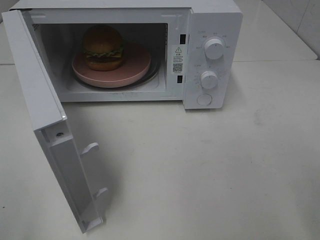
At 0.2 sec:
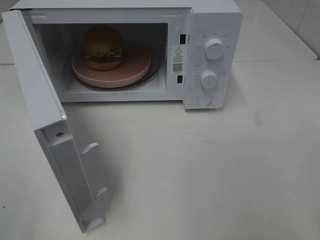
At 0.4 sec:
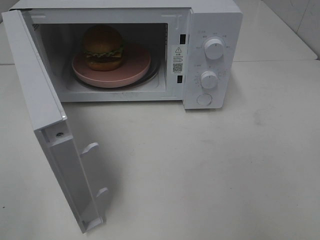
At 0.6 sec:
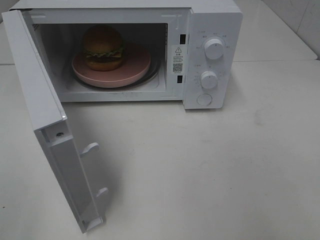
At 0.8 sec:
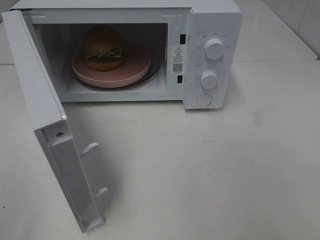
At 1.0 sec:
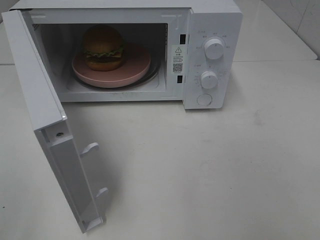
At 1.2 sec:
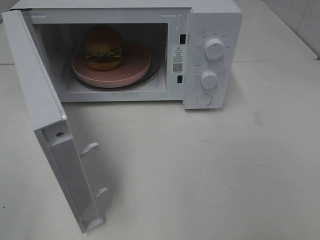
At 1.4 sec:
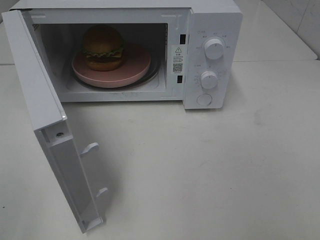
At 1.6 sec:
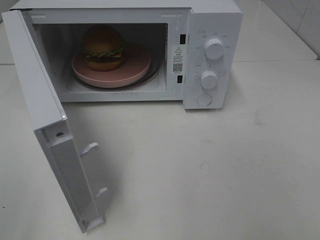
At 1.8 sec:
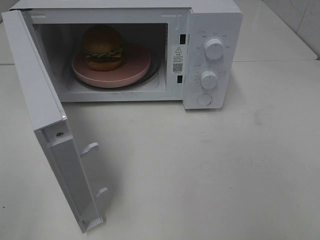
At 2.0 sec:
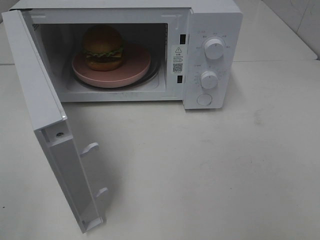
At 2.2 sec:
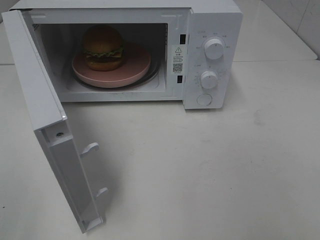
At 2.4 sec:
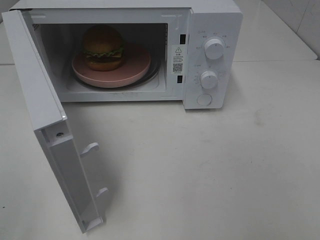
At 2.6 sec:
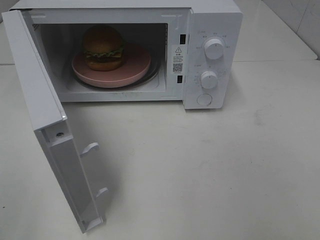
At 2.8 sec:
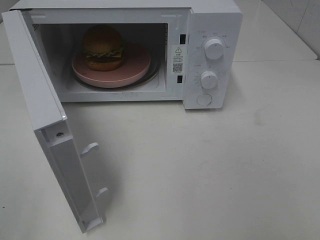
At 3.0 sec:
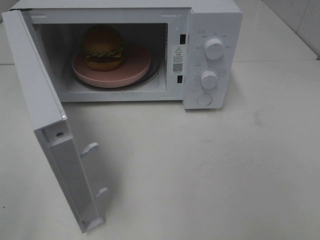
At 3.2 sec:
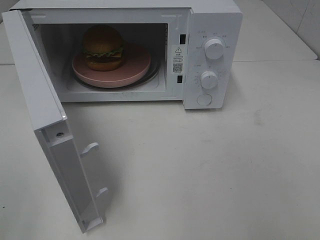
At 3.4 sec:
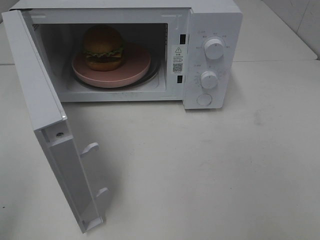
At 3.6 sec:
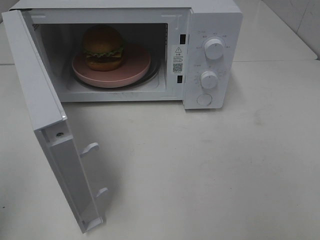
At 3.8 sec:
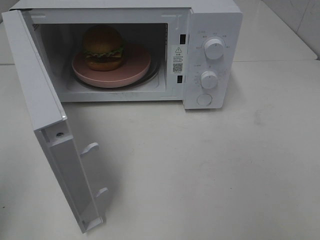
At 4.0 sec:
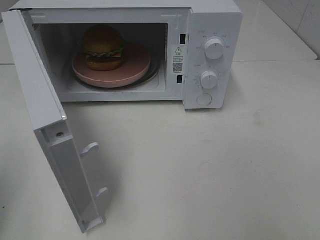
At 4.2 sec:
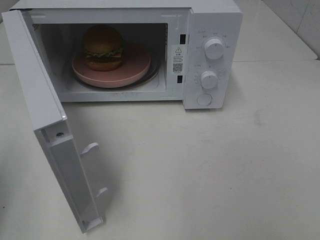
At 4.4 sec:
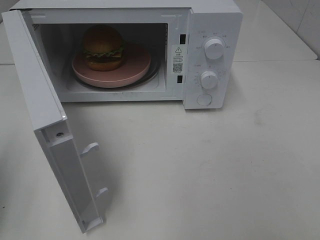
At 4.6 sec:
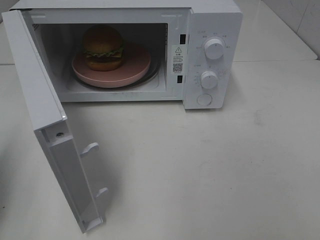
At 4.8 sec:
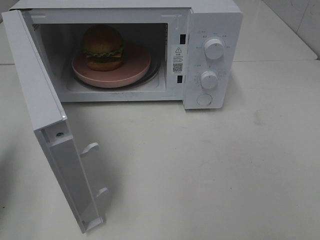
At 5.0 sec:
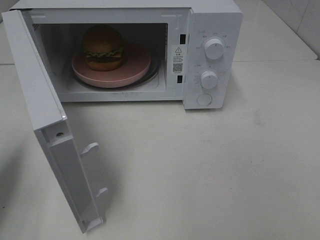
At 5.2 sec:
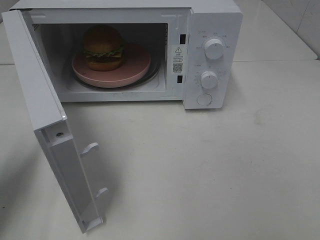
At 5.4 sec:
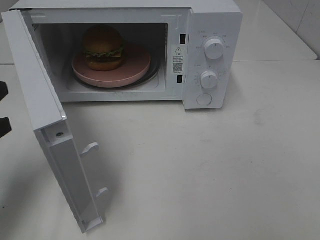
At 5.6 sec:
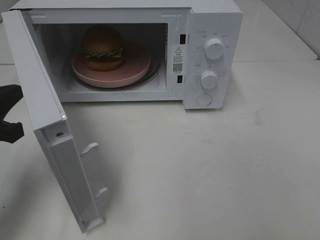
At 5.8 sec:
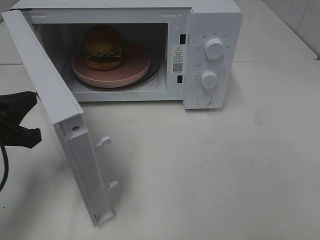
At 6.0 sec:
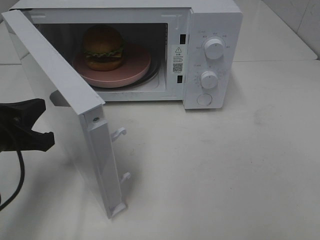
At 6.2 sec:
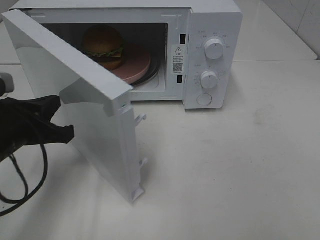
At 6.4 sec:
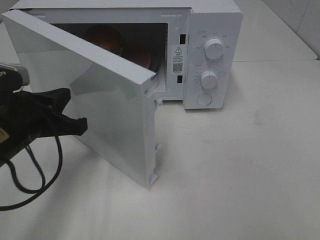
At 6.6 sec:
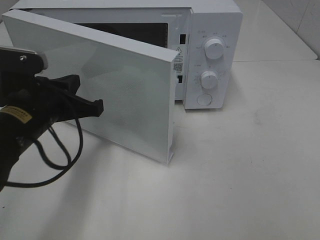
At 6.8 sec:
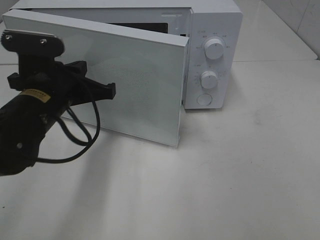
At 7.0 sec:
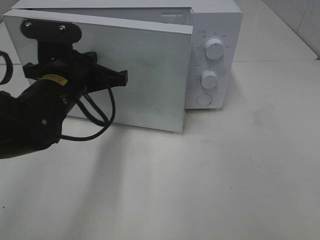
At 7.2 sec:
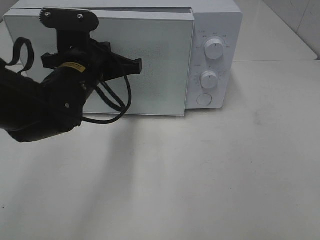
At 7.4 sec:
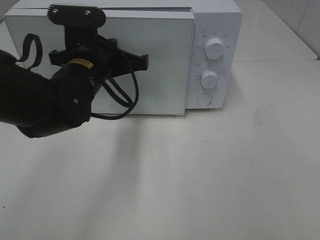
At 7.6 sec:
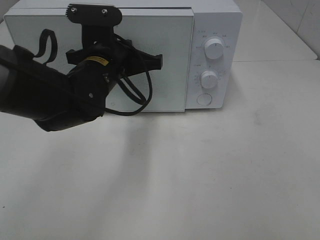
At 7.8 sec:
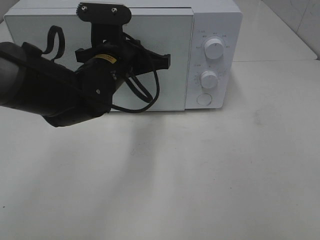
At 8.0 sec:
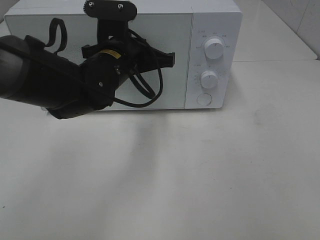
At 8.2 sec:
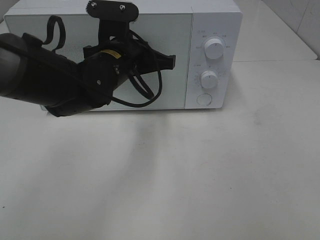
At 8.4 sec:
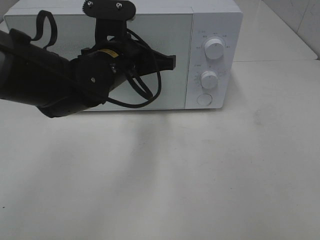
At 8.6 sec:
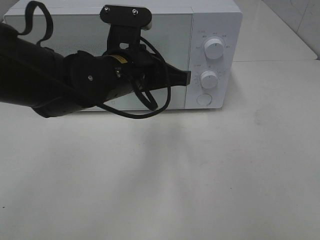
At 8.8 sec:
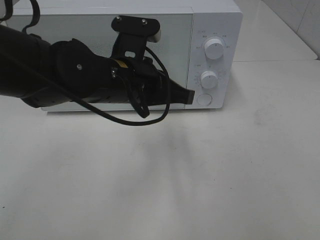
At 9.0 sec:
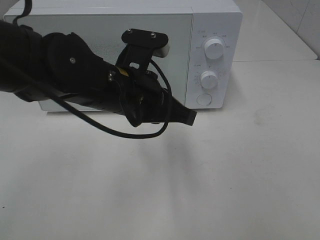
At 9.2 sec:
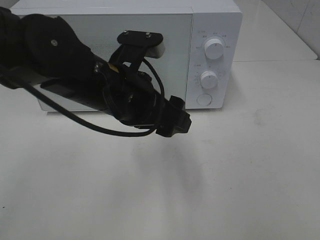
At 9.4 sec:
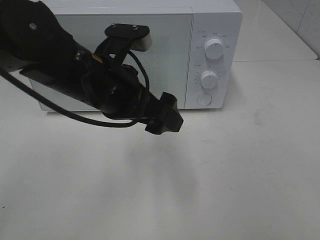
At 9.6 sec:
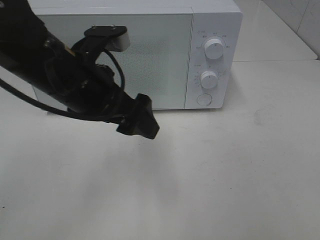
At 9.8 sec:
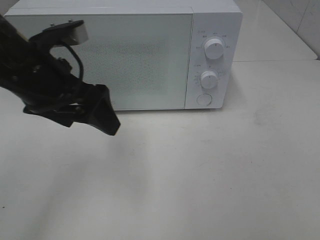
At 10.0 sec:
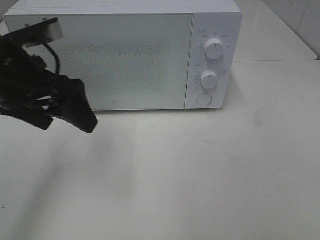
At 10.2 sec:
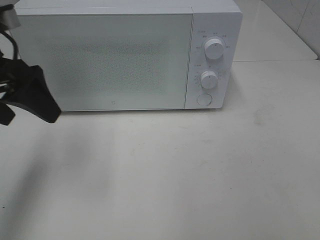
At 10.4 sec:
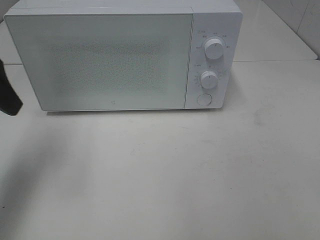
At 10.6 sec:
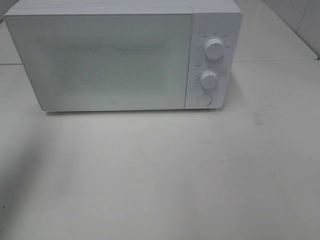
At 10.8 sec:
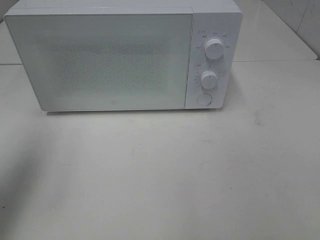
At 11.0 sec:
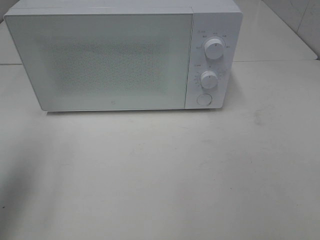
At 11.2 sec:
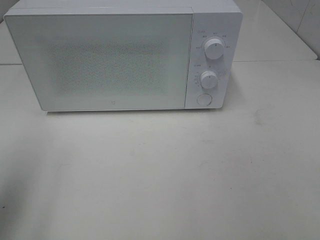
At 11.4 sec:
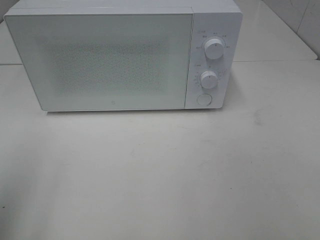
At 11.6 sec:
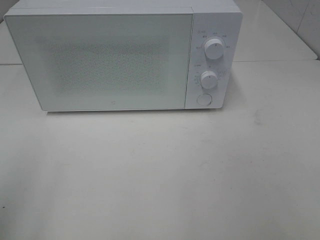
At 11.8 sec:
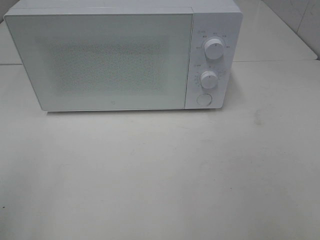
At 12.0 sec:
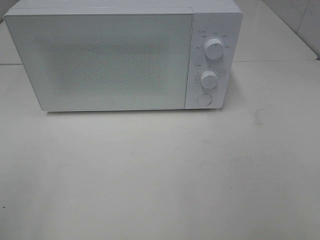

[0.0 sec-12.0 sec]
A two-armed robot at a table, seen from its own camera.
Task of the whole recording: Heat the burger.
Step, 0.0 sec to 9.0 sec: Left hand: close the microwave door.
1.6 sec to 3.0 sec: Both grippers stay put.
4.4 sec to 6.0 sec: The left gripper shifts approximately 15 cm to the right, downward and forward.
6.0 sec to 7.6 sec: The left gripper heads to the right and forward, covering approximately 20 cm.
7.6 sec to 9.0 sec: The left gripper shifts roughly 5 cm backward.
9.0 sec to 10.4 sec: The left gripper is displaced to the left by approximately 25 cm, and opens.
10.4 sec to 12.0 sec: The left gripper heads backward, covering some 20 cm.

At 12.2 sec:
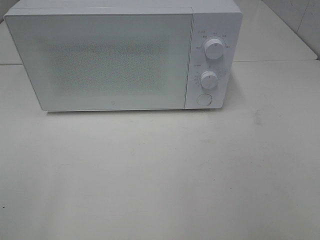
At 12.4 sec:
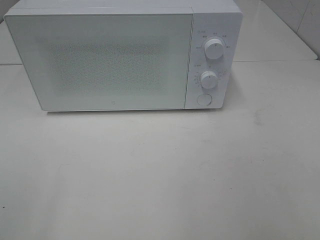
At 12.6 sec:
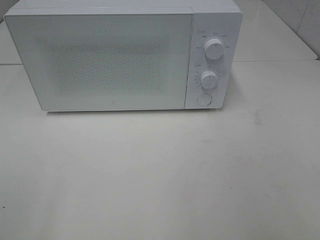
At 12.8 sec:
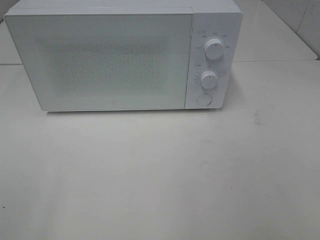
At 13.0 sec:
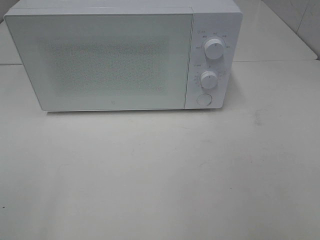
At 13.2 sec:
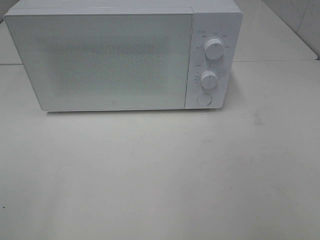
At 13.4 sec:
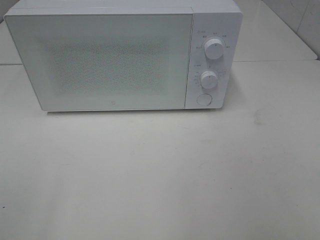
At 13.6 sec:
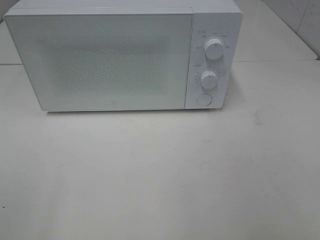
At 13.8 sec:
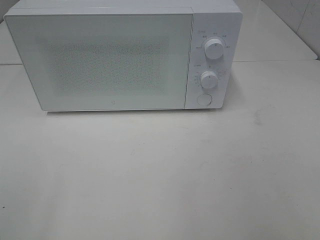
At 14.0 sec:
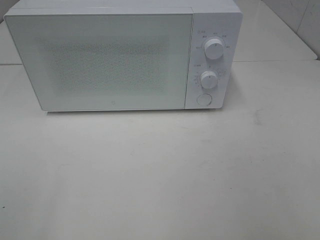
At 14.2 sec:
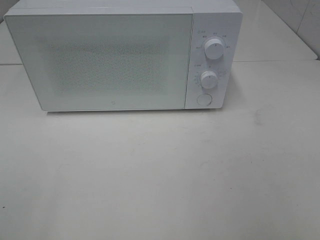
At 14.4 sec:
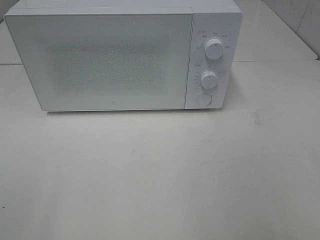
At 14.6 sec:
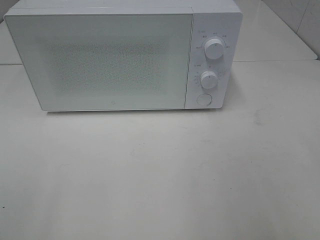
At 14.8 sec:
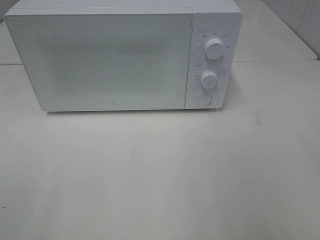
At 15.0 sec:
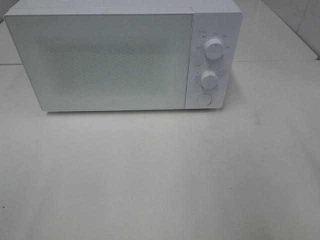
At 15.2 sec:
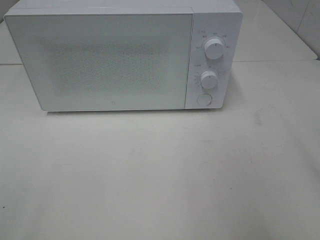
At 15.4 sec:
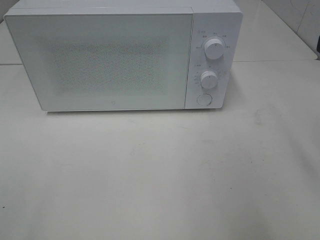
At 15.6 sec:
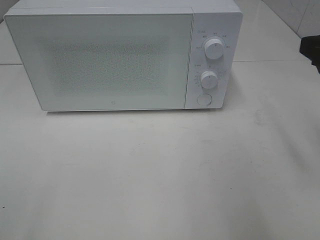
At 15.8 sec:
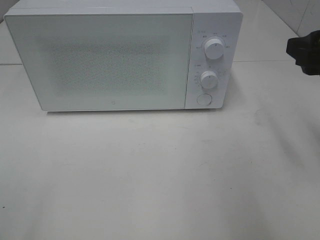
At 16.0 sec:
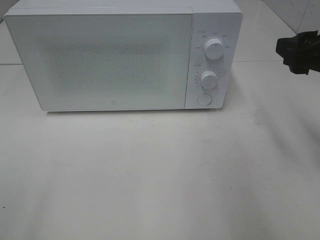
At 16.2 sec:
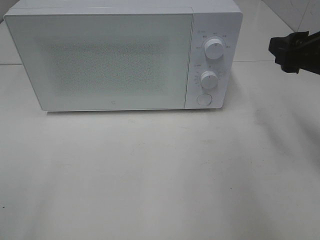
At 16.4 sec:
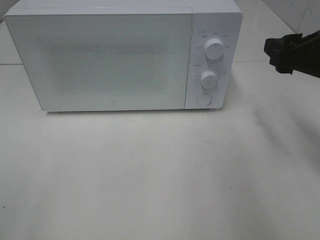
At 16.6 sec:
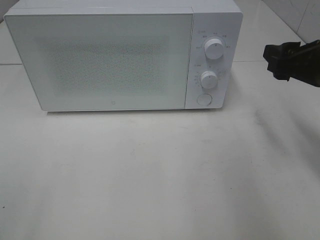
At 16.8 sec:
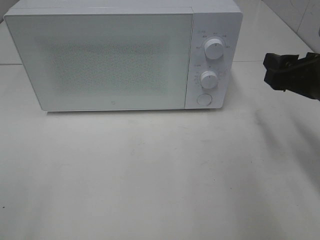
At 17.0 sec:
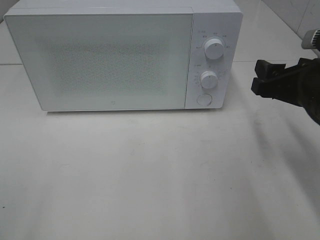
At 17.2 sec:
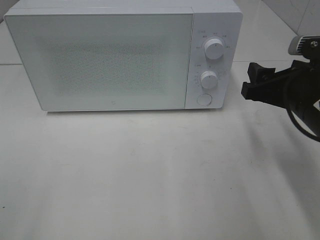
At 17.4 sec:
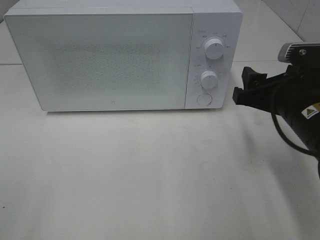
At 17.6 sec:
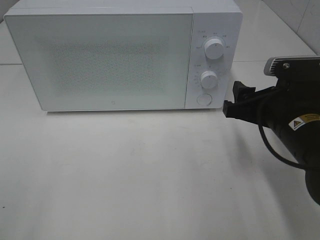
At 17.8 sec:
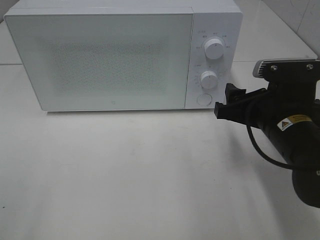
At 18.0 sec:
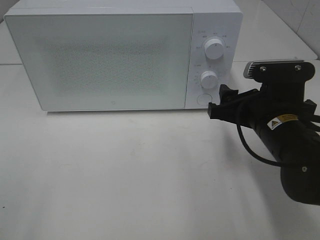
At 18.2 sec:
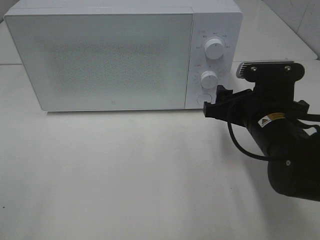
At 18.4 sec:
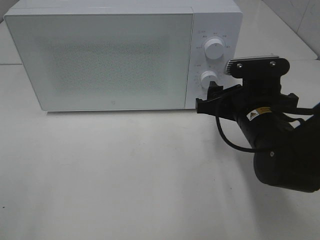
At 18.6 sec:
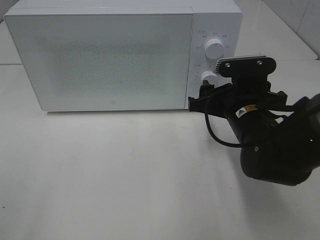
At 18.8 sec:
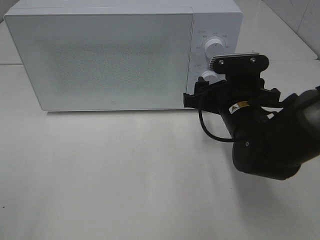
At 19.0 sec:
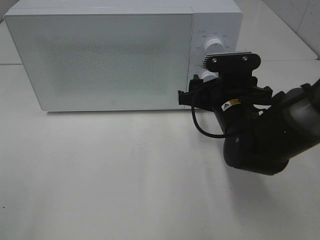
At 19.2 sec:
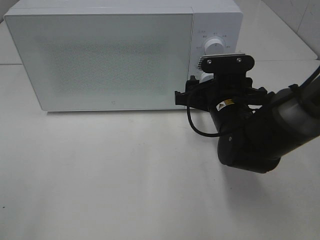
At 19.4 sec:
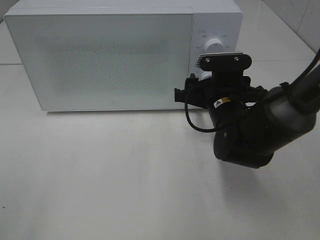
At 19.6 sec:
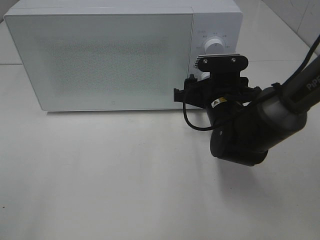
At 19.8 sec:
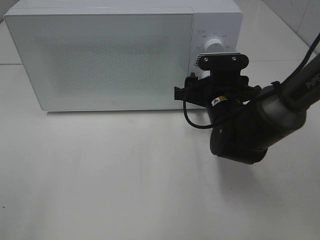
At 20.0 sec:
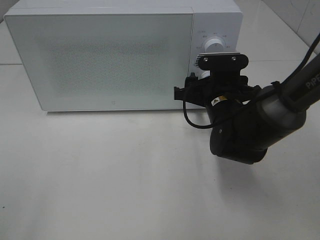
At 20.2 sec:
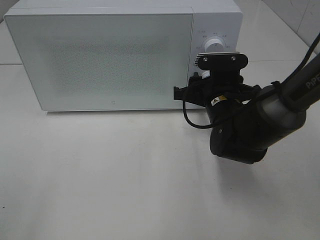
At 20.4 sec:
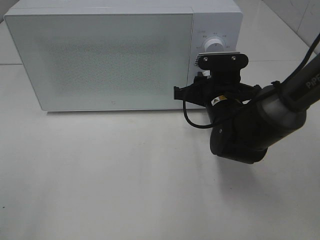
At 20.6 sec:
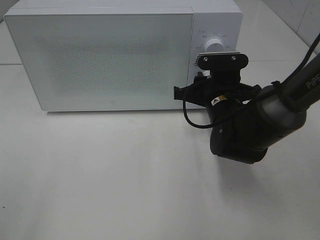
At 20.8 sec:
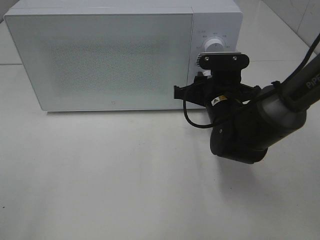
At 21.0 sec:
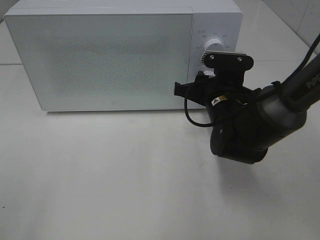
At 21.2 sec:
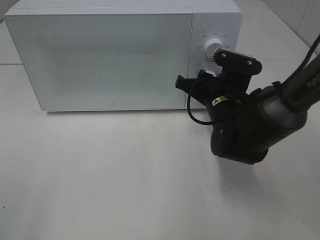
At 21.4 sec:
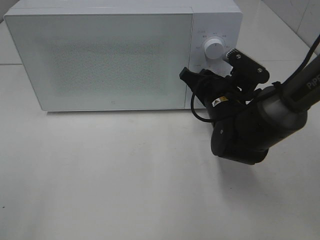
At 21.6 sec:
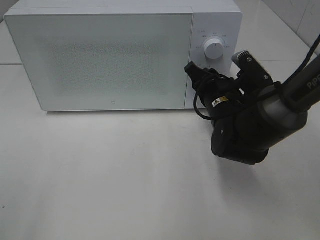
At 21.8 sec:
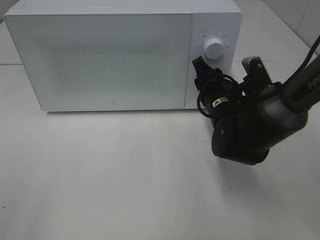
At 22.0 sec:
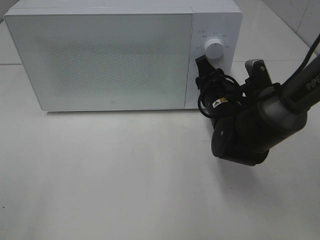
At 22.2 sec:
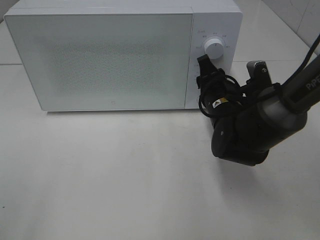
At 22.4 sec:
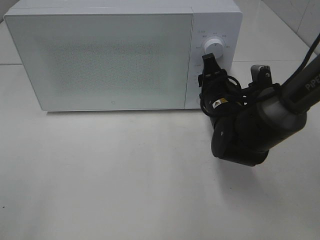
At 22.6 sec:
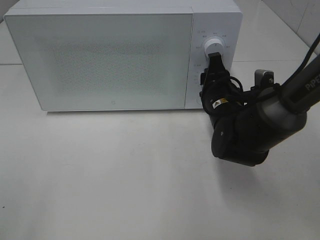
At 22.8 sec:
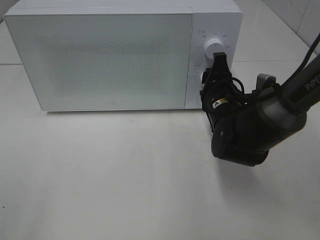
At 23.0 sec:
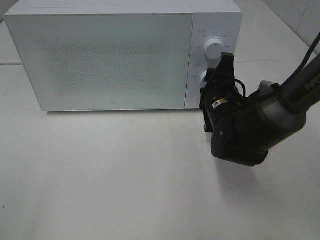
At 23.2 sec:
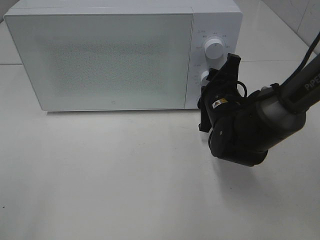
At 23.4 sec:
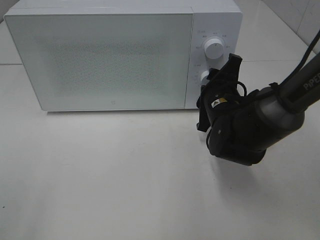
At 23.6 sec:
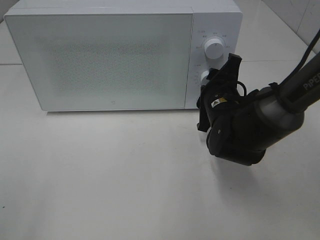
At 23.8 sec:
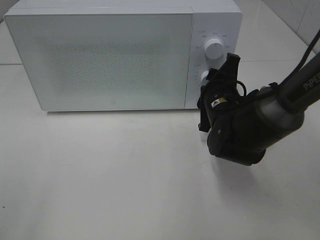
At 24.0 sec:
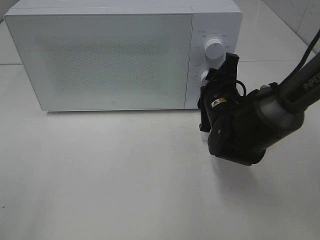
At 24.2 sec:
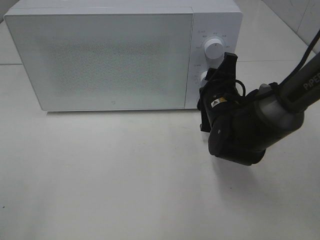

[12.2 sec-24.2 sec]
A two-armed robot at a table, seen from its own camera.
Task of the whole recording: Heat the burger.
12.2 sec to 13.8 sec: Both grippers stay about where they are.
15.2 sec to 16.6 sec: The right gripper moves forward and downward, roughly 15 cm.
16.6 sec to 18.2 sec: The right gripper shifts roughly 10 cm to the left and downward.
18.2 sec to 19.8 sec: The right gripper moves forward, approximately 5 cm.
